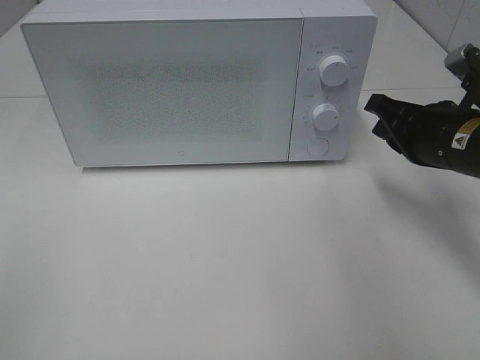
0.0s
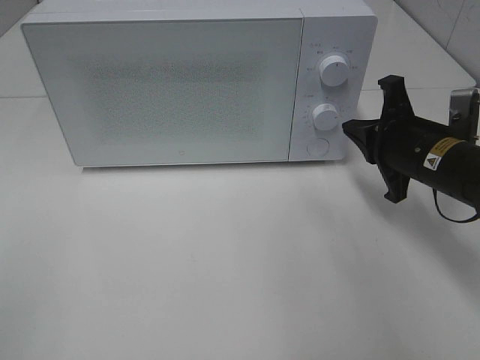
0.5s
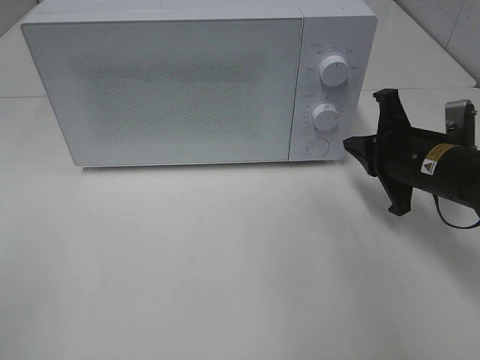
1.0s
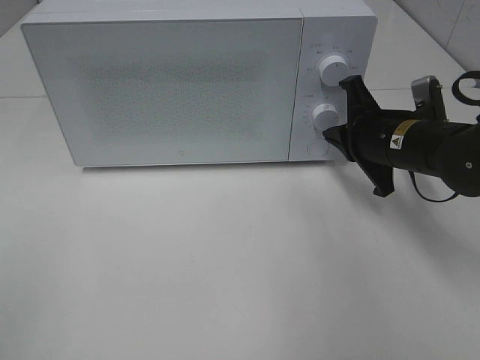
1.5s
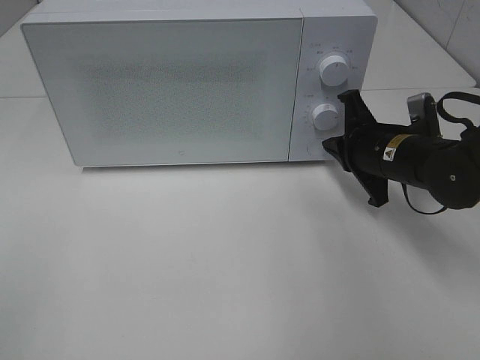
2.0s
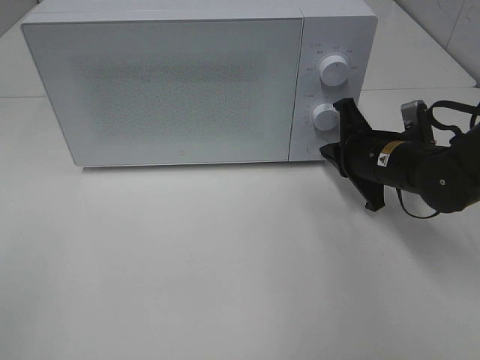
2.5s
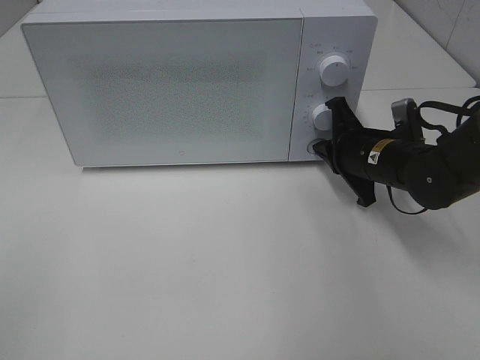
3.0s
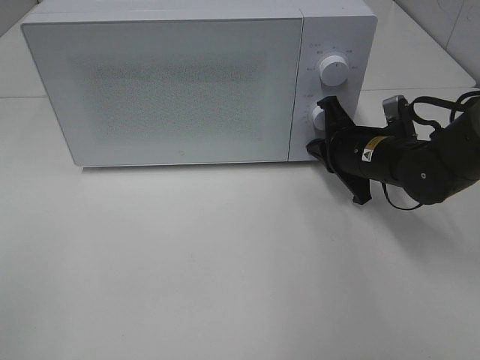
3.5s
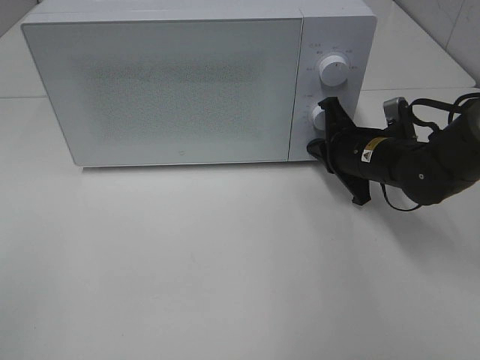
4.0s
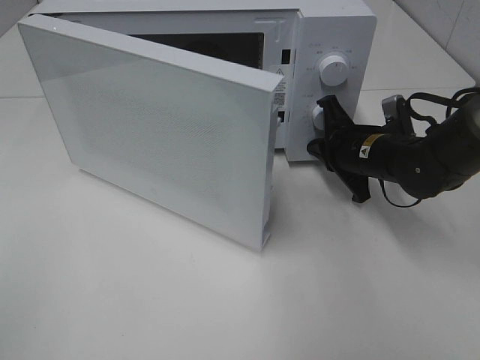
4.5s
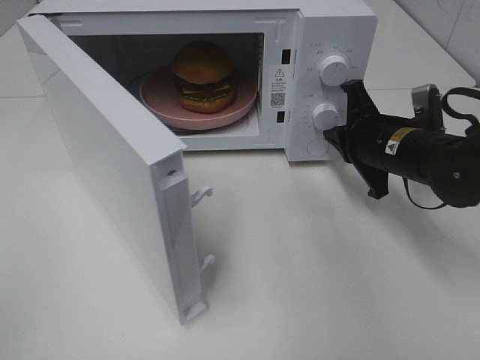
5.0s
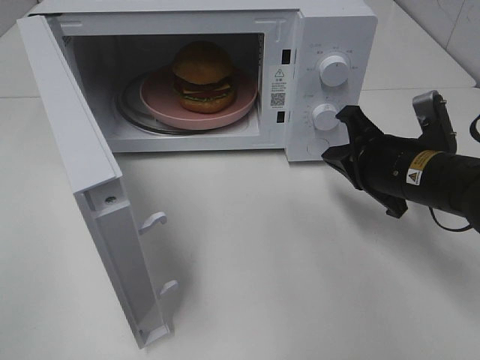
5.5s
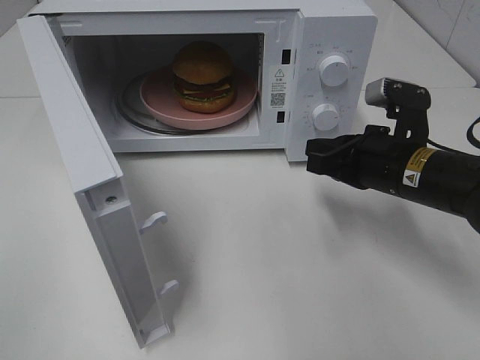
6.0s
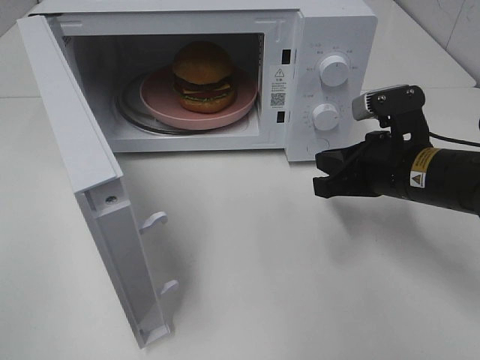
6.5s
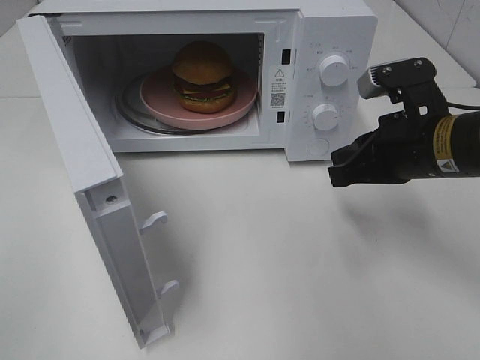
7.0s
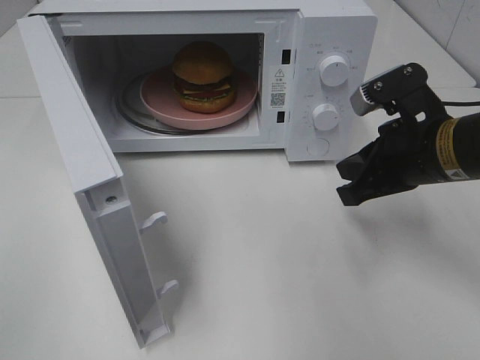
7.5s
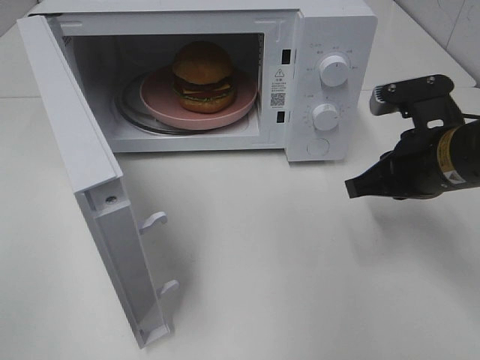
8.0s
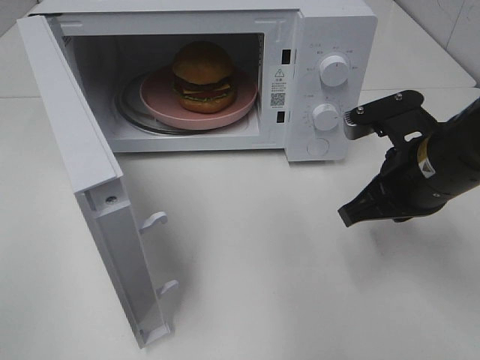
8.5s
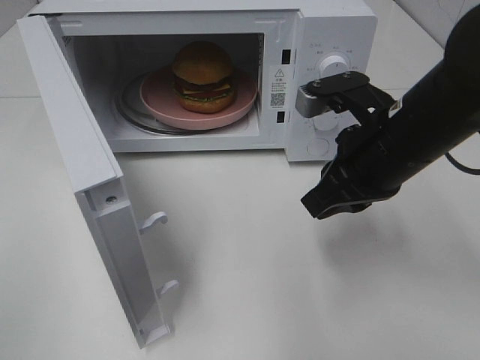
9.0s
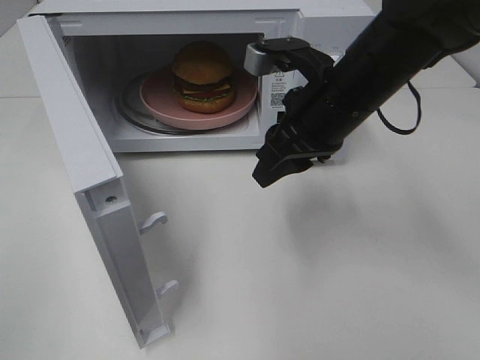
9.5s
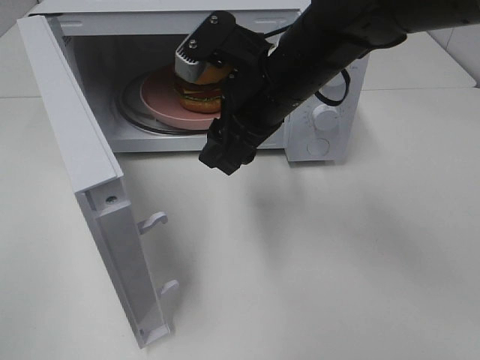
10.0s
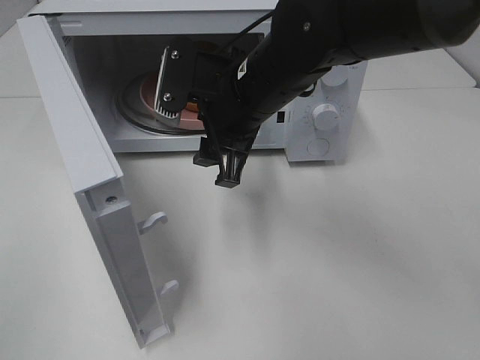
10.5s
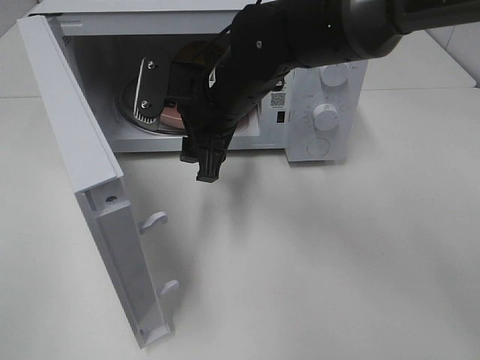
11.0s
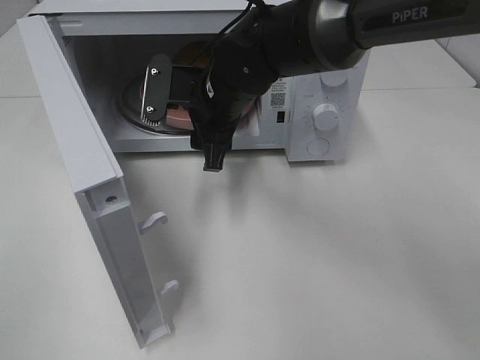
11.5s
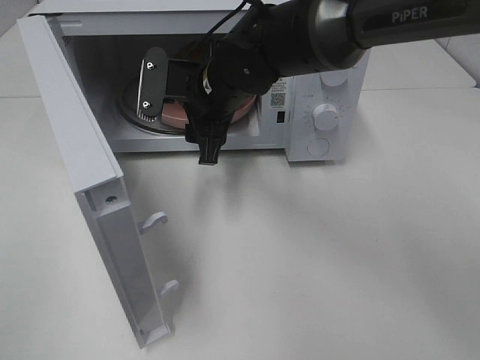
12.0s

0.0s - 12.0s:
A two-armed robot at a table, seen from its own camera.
Task of the whole recording: Heat the burger.
Step, 0.0s - 4.5s: Right hand: press the switch.
0.0s - 2.0s: The right gripper heads downward, covering about 5 cm.
2.0s - 4.0s: There are only small adjustments of the grippers.
4.0s - 6.0s: The right gripper moves backward, roughly 10 cm.
8.0s - 10.0s: The right gripper travels to the left by about 15 cm, and opens up.
10.0s - 12.0s: The right gripper travels to the left and forward by approximately 10 cm.

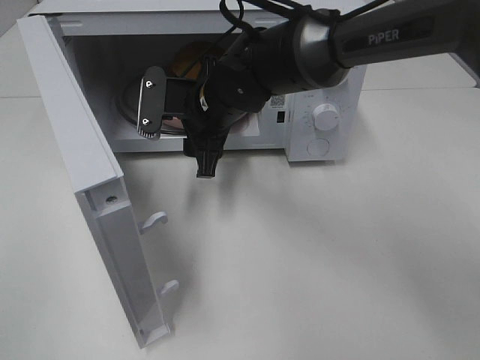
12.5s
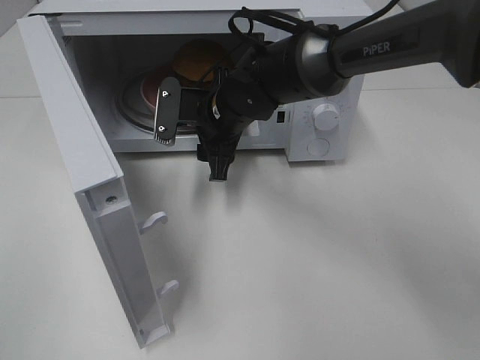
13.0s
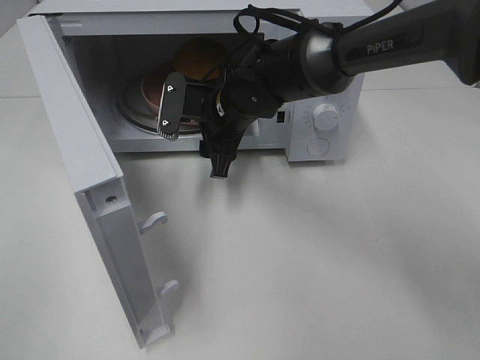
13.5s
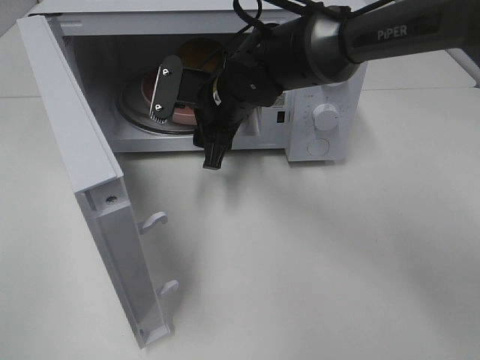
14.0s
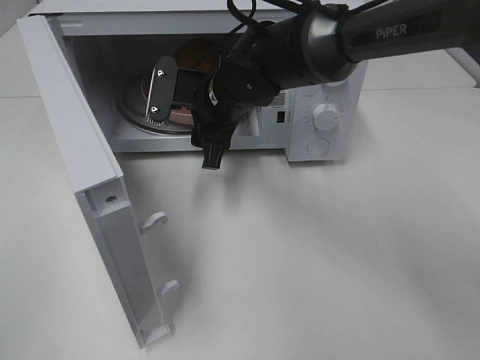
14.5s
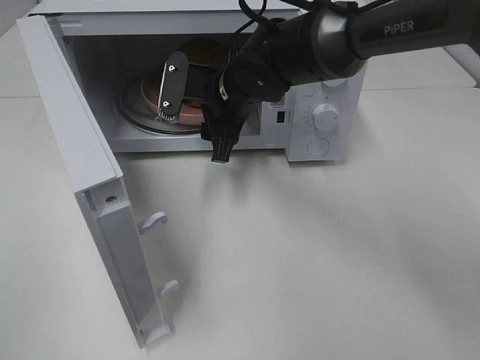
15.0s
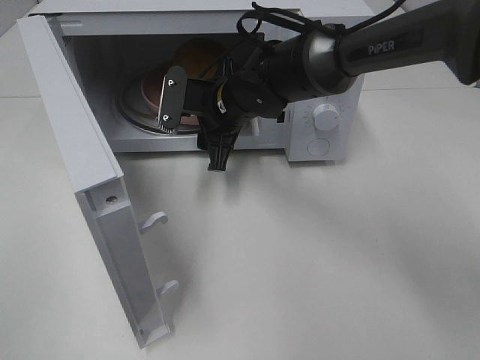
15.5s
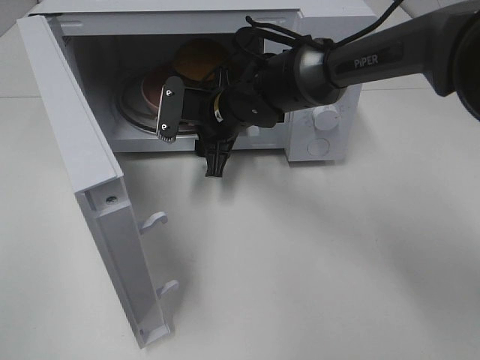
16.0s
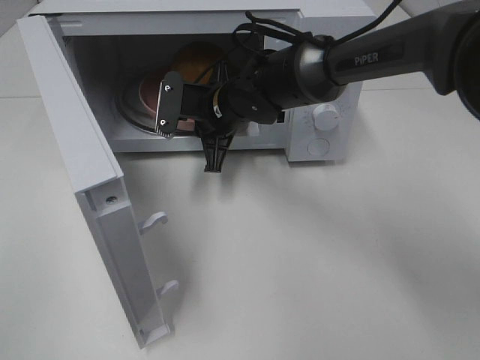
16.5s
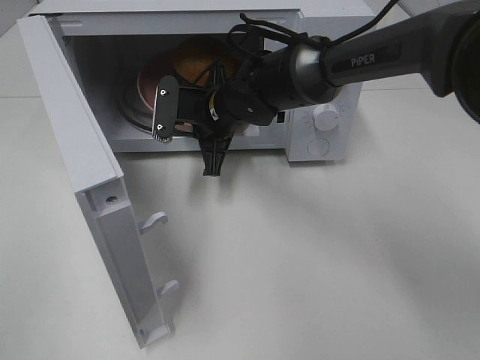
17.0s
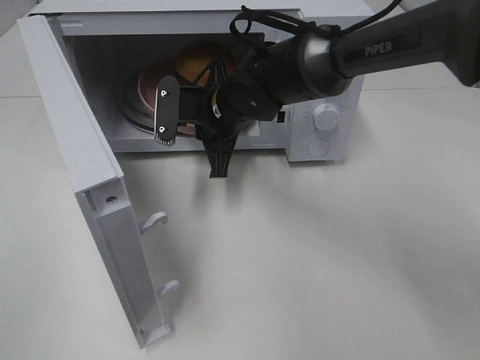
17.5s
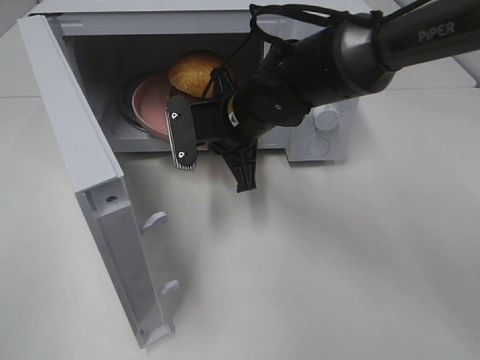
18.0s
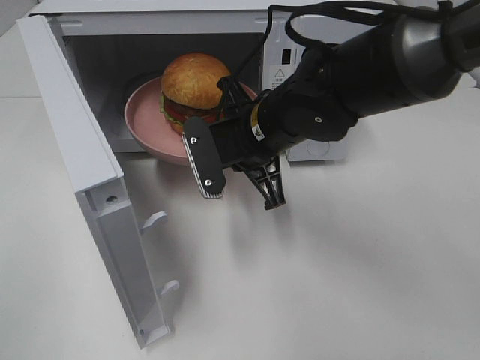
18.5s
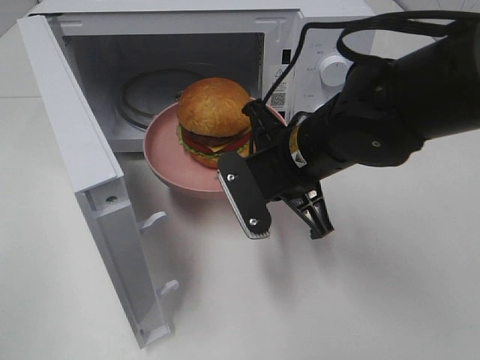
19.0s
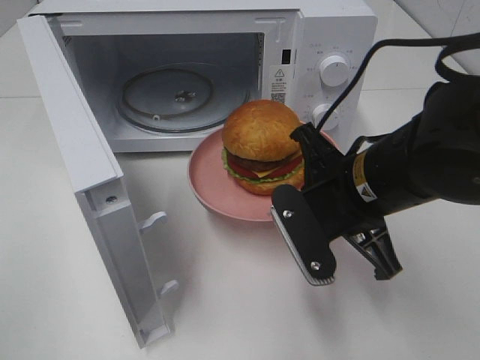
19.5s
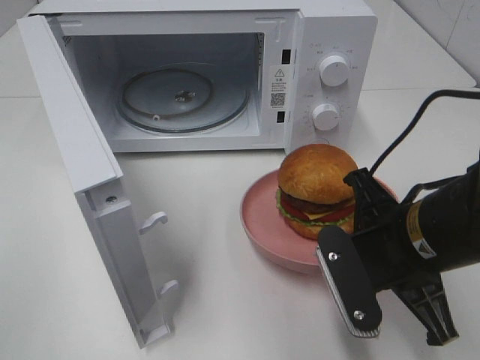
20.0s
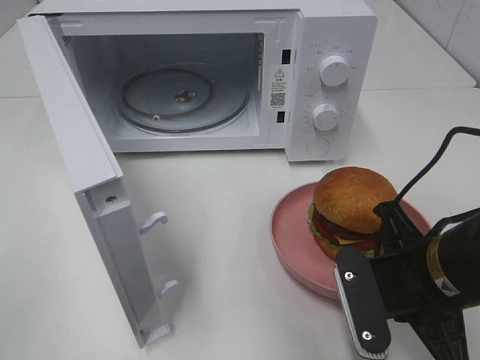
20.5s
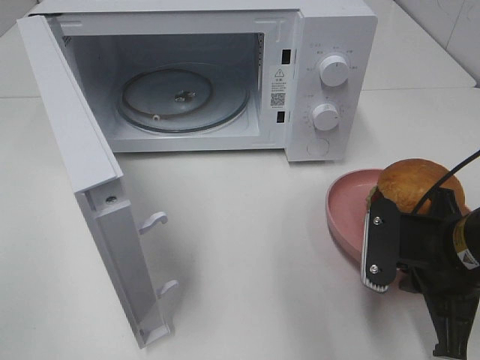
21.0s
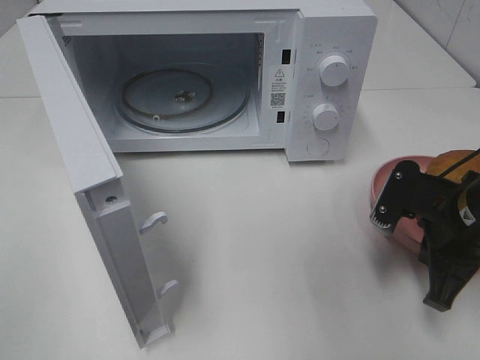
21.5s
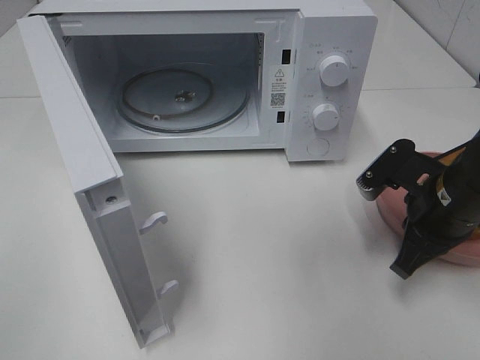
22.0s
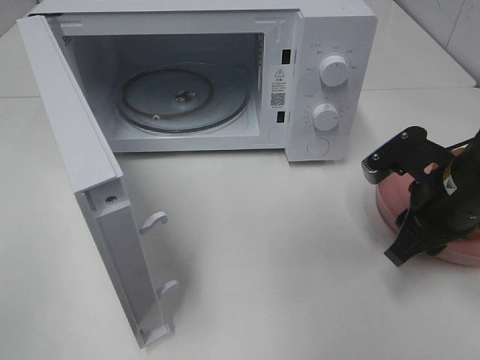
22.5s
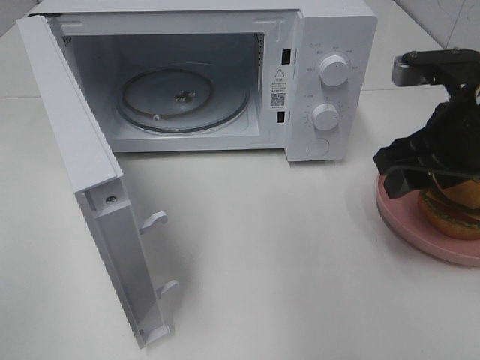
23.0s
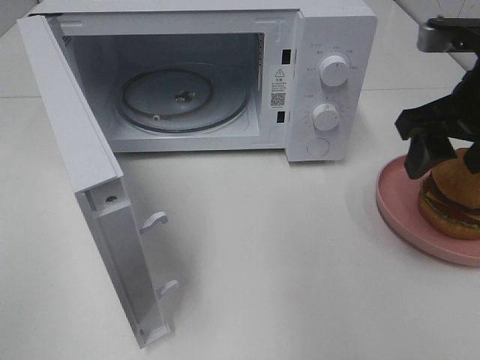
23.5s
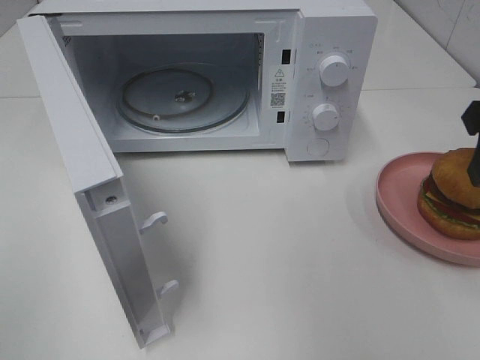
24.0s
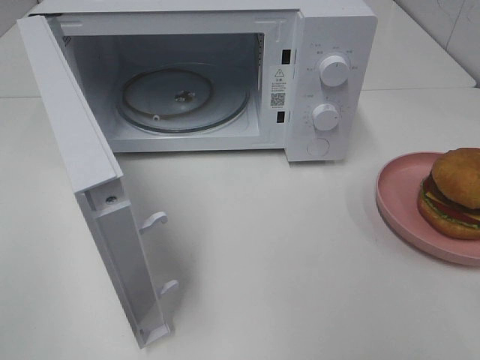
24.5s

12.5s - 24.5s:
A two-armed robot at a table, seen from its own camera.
Task of the whole recording: Heat the burger.
Step, 12.5s - 16.5s: Right hand: grab the plate with the hamburger.
Step, 17.0s - 22.0s: Right hand: place the plate on the table.
12.5s - 14.5s: The grippers make only small movements.
14.5s - 16.5s: The right gripper closes its fingers.
16.5s - 18.5s: The right gripper shifts about 10 cm backward.
18.5s - 20.5s: The right gripper heads backward and to the right, covering about 20 cm.
20.5s - 22.5s: The right gripper moves forward and to the right, roughly 10 cm, and opens up.
22.5s - 24.5s: The right gripper heads upward and backward, covering approximately 20 cm, and opens up.

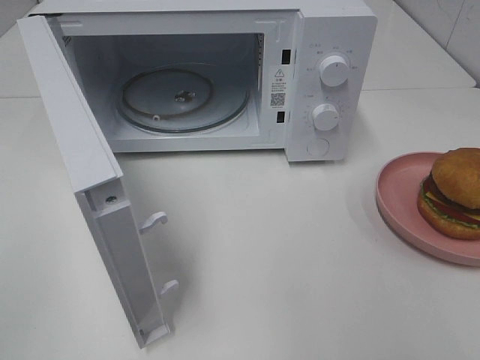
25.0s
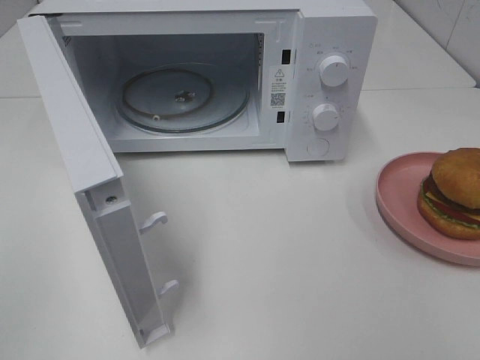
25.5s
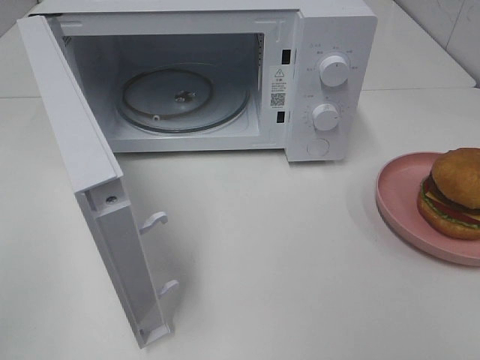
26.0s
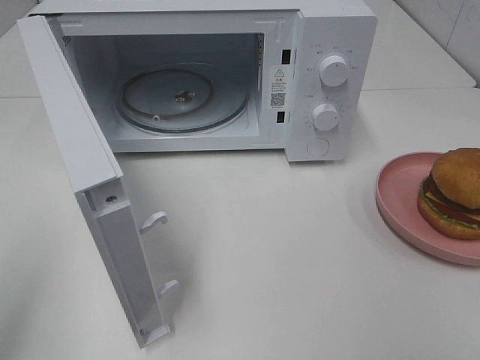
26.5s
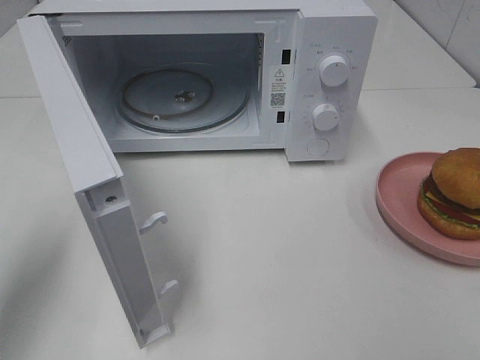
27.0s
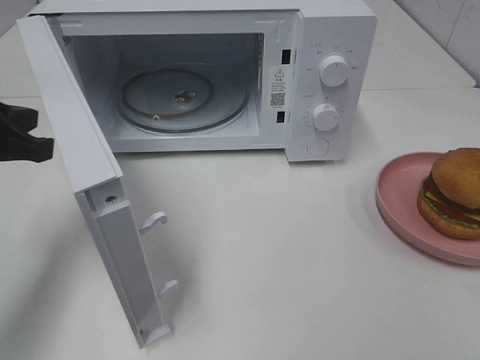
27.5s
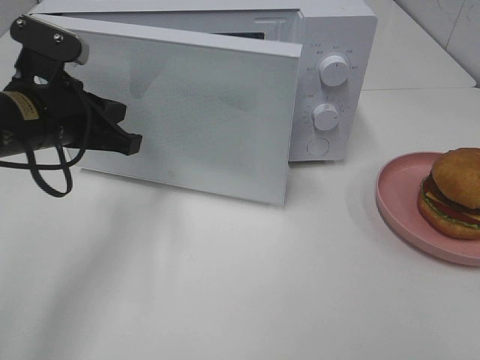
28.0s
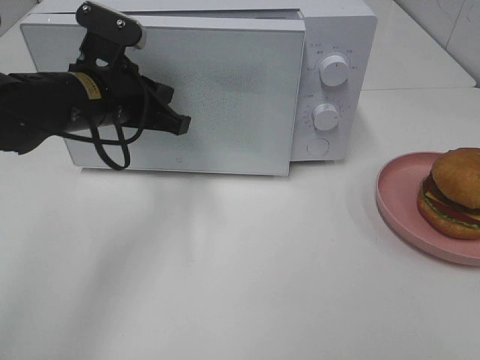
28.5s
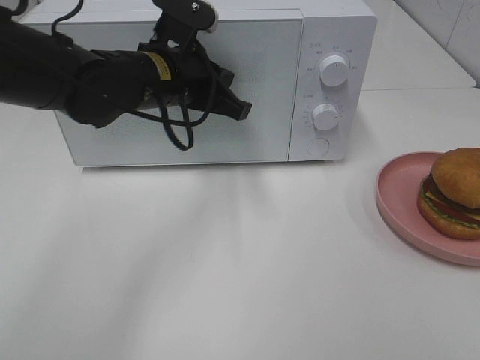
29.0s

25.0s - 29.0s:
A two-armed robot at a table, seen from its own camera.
Task of the whole recording: Heat the burger.
25.0s - 27.0s: The left gripper heads forward, covering some 20 cm.
27.0s - 29.0s: The left gripper moves to the right and forward, roughly 30 cm, and opens.
